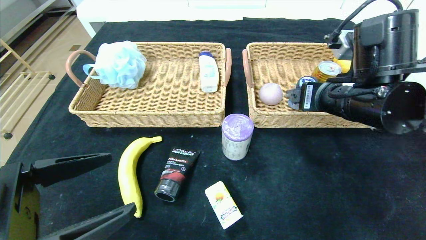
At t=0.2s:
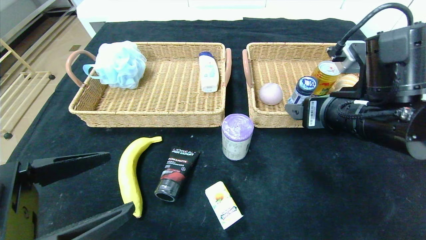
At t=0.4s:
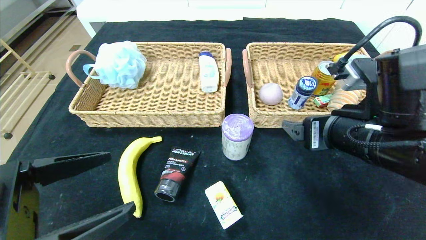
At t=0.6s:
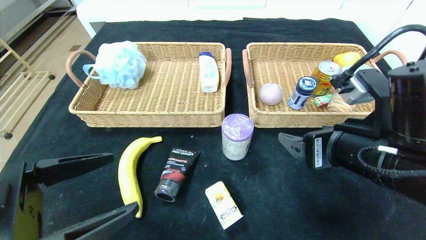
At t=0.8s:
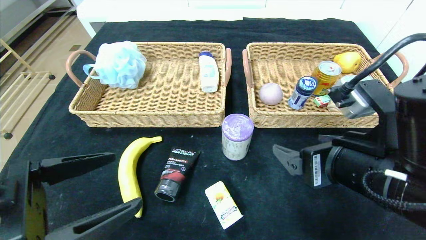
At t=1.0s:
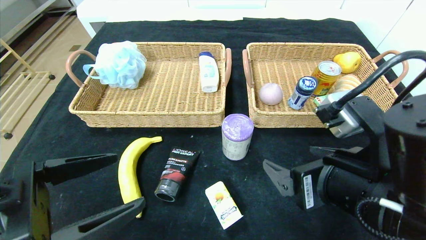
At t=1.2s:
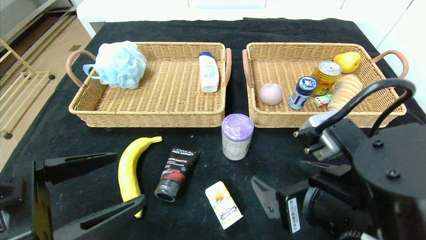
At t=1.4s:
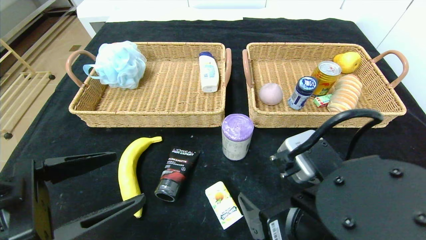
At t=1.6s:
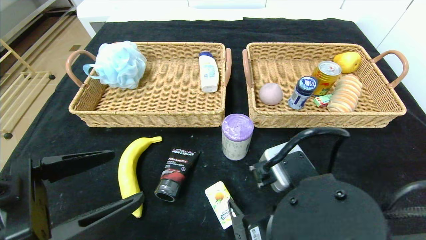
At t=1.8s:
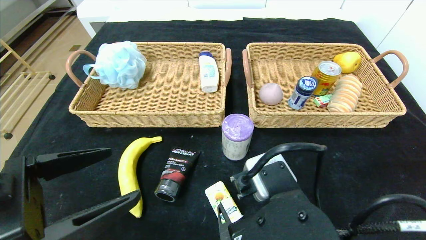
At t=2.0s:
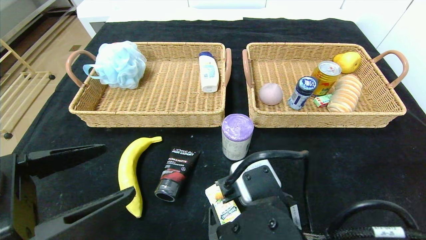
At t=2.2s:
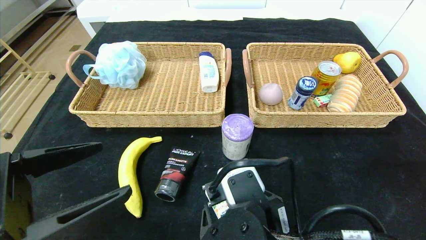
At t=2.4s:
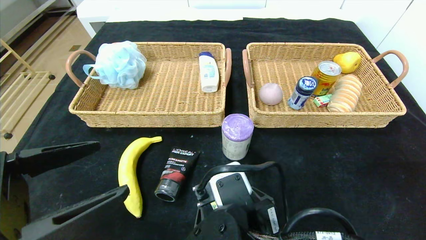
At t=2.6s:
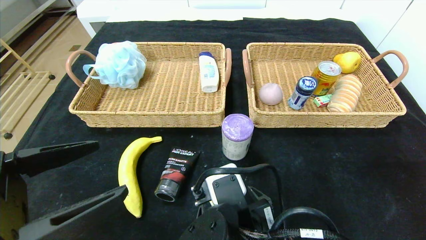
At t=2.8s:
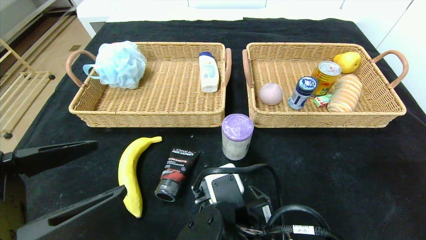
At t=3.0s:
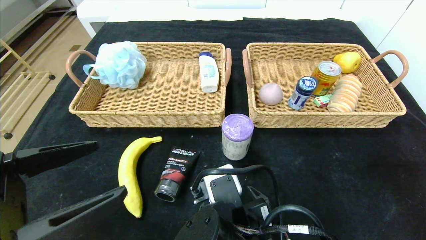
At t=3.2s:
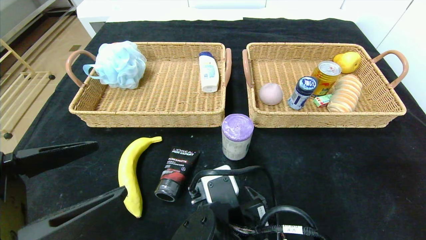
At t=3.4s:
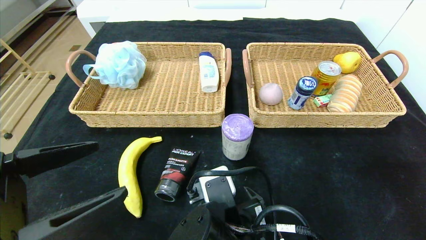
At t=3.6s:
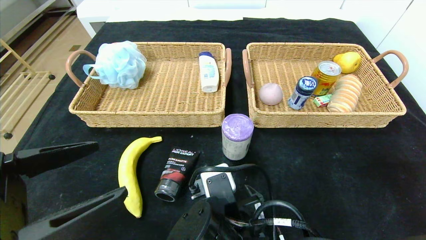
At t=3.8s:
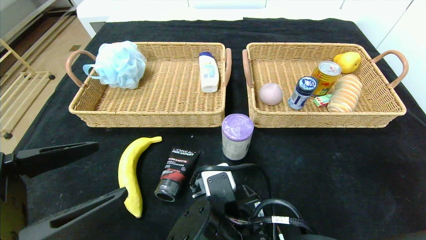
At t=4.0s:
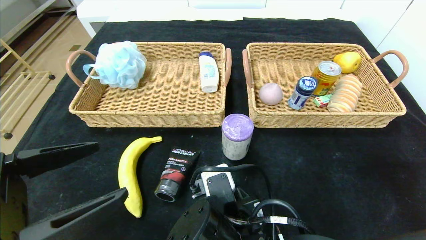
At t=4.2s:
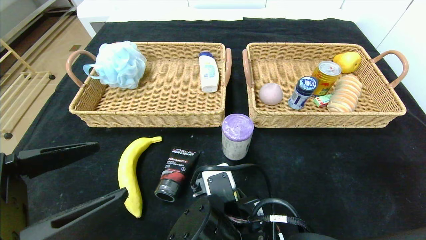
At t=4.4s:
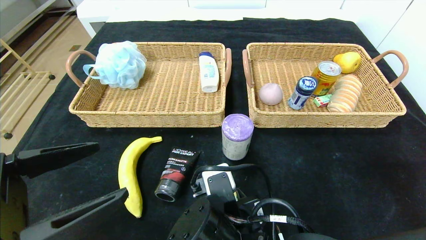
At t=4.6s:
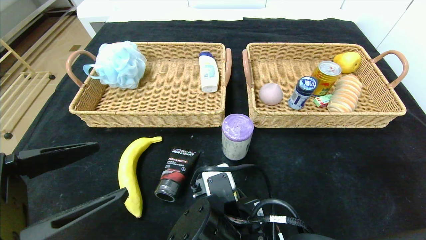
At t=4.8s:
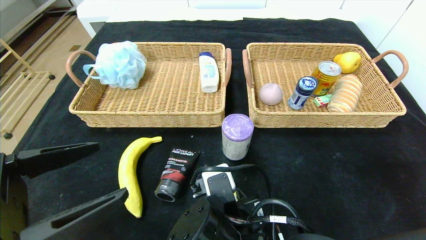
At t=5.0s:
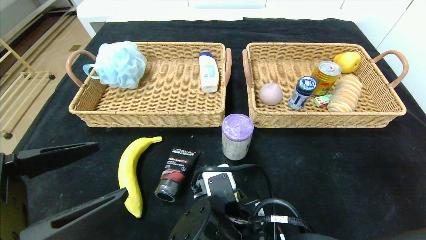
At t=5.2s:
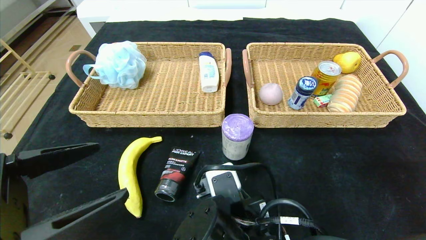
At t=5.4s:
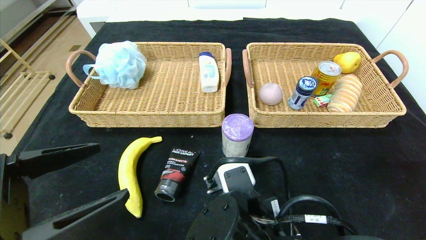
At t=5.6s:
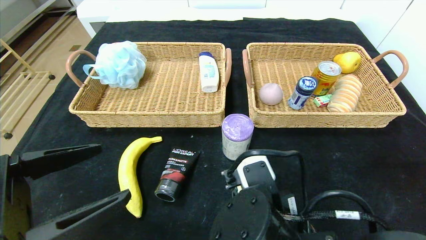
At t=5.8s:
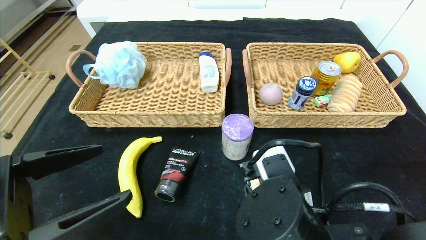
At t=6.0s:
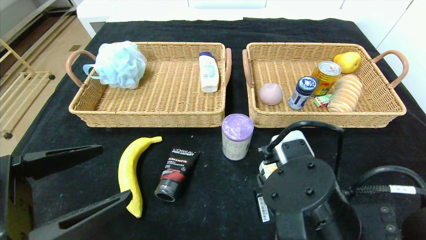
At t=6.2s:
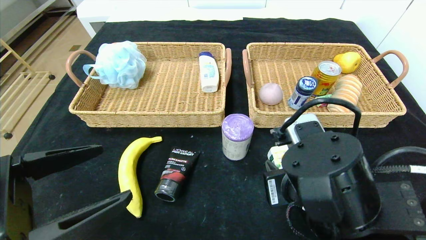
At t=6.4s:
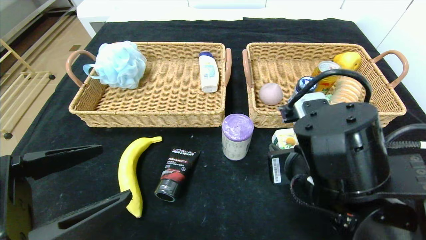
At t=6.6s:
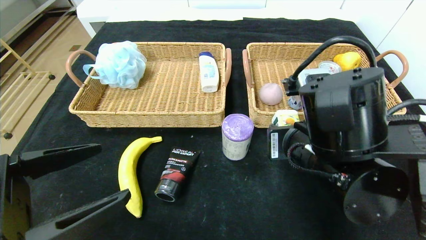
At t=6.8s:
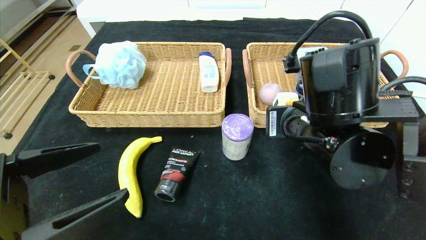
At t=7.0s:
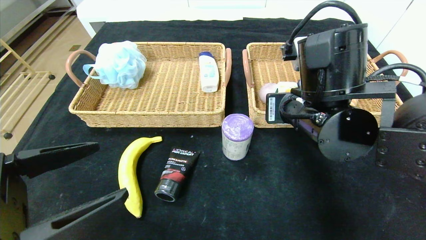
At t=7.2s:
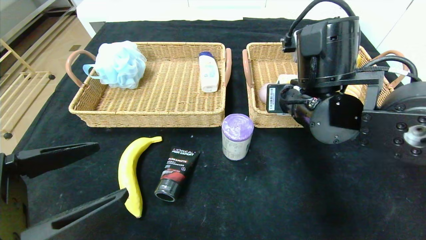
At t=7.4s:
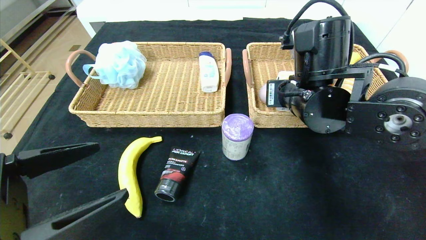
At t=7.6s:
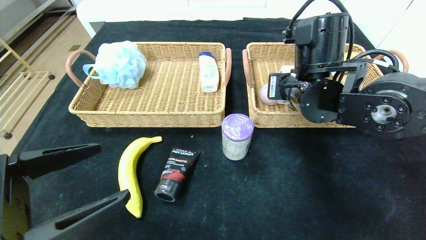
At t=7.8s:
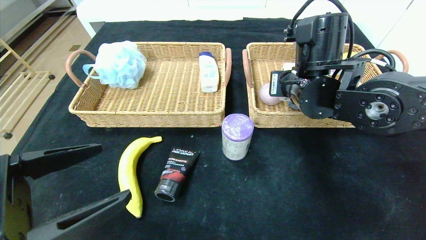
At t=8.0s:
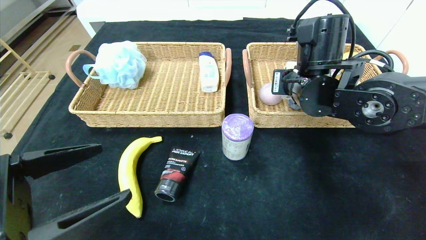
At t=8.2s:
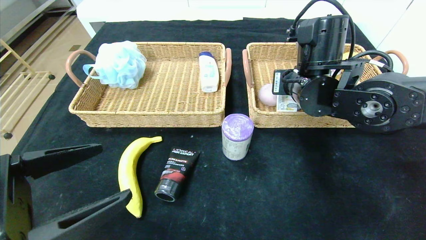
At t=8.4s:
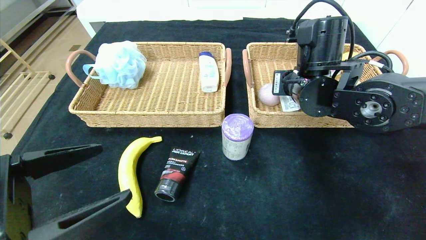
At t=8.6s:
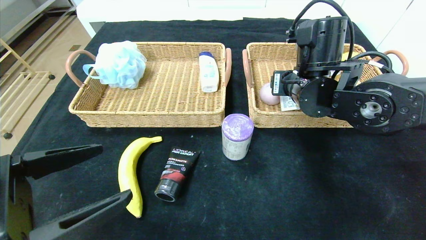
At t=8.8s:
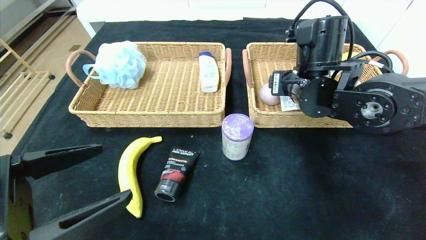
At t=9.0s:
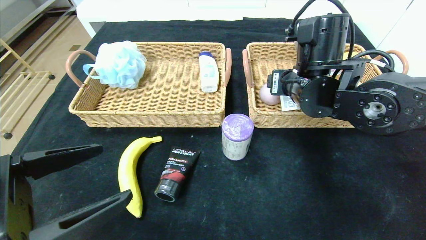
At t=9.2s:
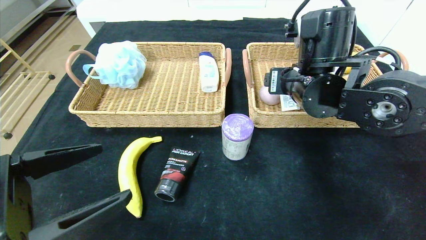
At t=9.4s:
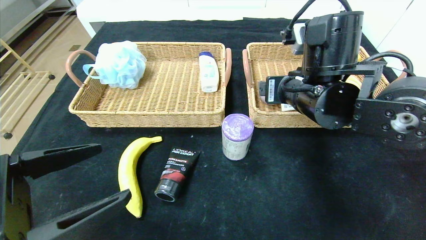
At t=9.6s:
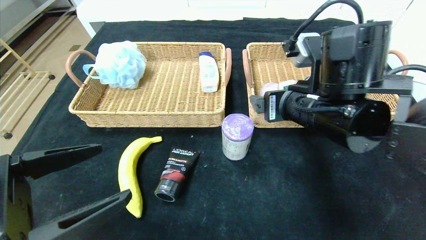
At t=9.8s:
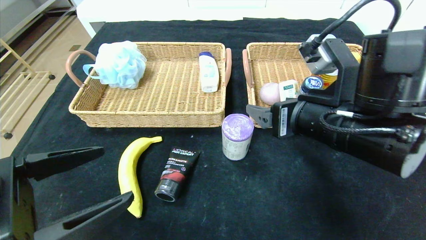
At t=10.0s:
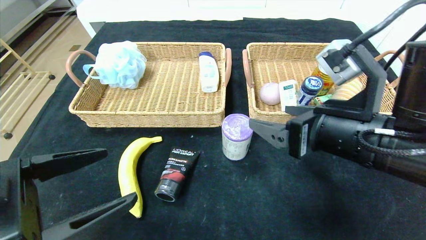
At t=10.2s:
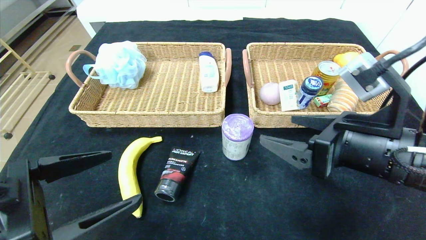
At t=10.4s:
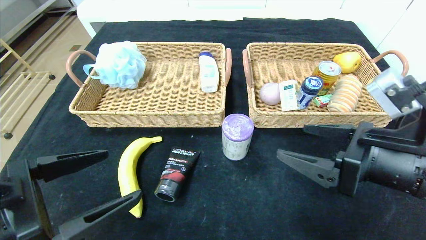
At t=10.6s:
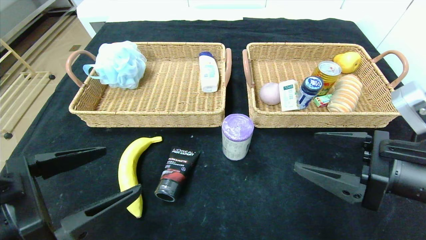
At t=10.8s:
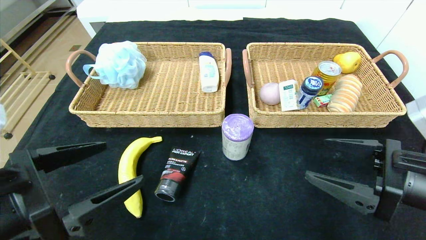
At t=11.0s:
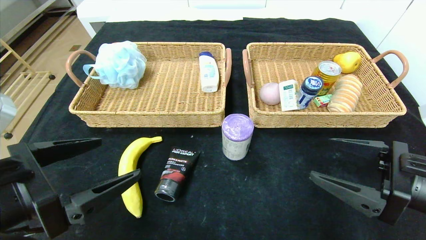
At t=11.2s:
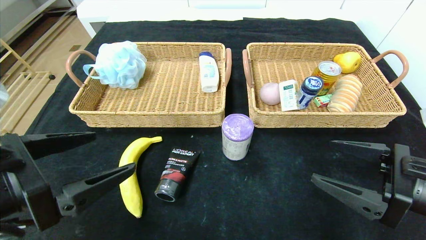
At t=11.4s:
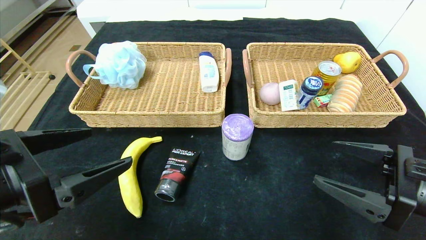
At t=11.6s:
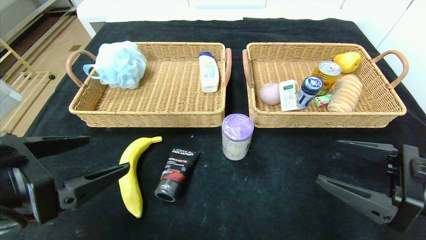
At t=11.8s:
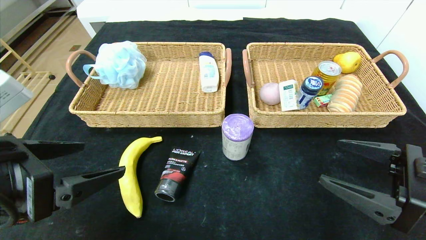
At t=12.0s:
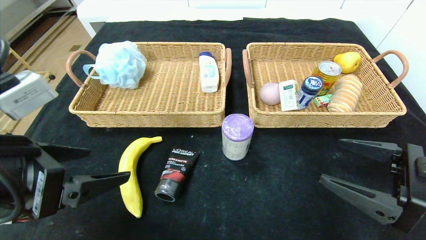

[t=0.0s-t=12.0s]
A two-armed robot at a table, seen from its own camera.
Step, t=0.0s to t=8.2s: Grasp the square chewing gum and put it in the right basket.
t=0.0s to t=1.6s: The right gripper moves backward, to the left and downward, about 20 cm.
t=1.6s to t=3.0s: The right gripper moves to the left and downward, about 10 cm.
t=3.0s to t=4.4s: The right gripper closes up.
t=4.4s to t=6.0s: The right gripper goes about 10 cm to the right and upward.
t=6.0s to t=7.6s: The right gripper shifts approximately 20 cm forward and upward.
t=7.6s to t=9.0s: The right gripper opens its fingers.
t=9.0s to t=10.4s: The right gripper heads backward and to the right, covering roughly 15 cm.
t=10.4s to t=12.0s: The right gripper heads to the right, covering about 5 cm. Meanwhile the left gripper shifts by roughly 5 cm.

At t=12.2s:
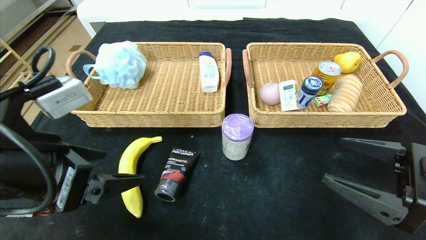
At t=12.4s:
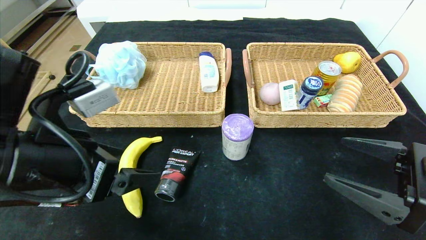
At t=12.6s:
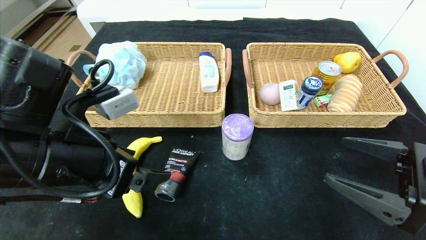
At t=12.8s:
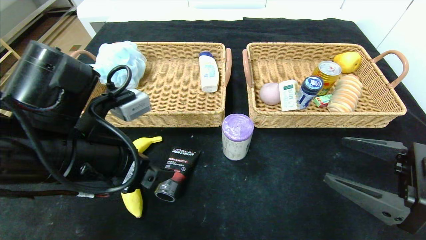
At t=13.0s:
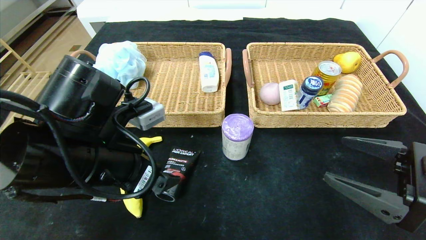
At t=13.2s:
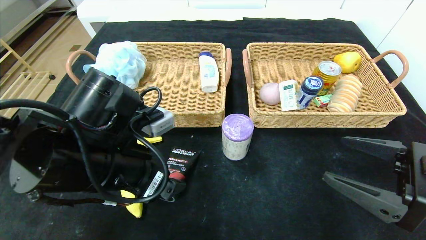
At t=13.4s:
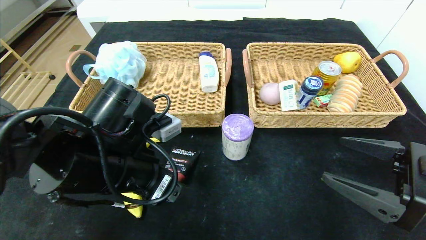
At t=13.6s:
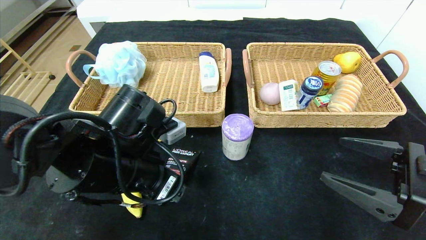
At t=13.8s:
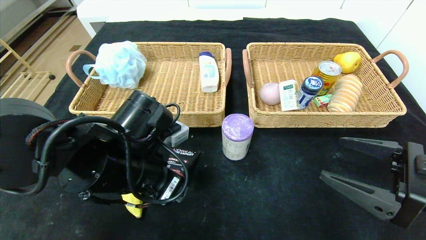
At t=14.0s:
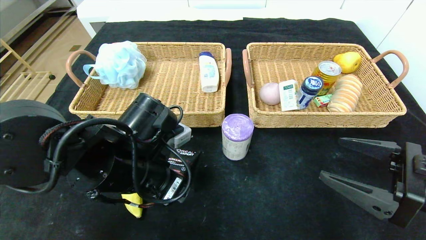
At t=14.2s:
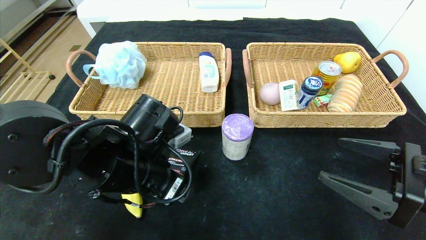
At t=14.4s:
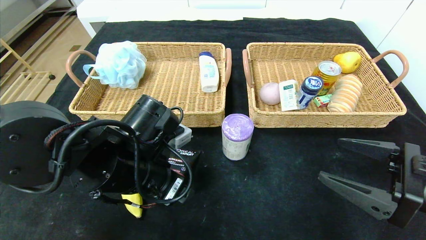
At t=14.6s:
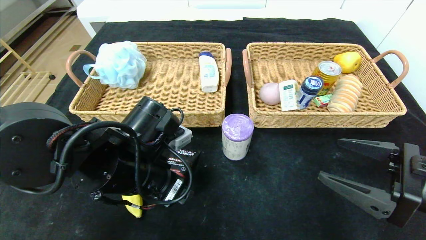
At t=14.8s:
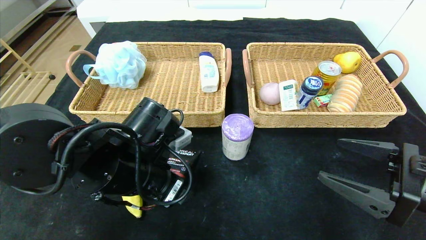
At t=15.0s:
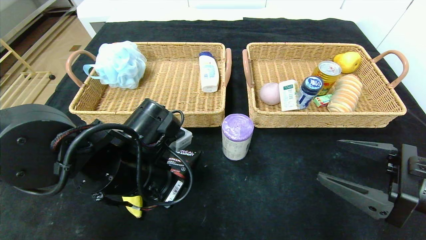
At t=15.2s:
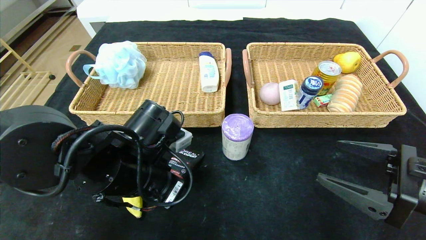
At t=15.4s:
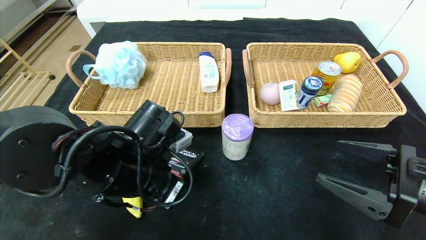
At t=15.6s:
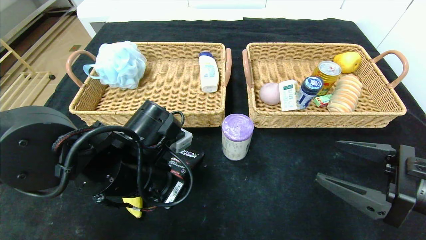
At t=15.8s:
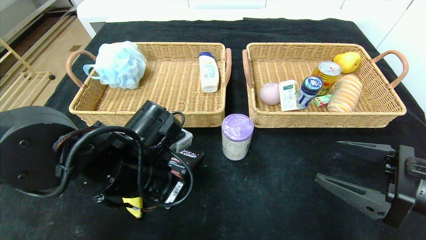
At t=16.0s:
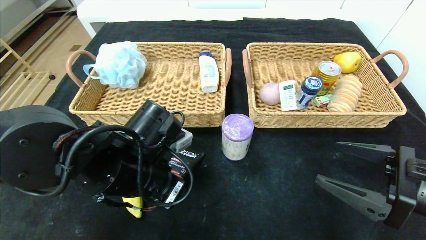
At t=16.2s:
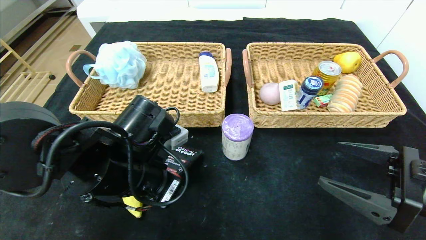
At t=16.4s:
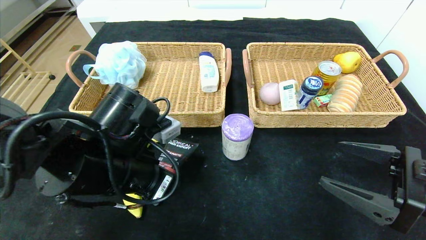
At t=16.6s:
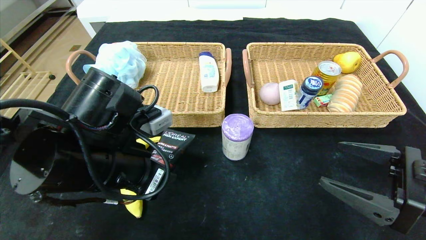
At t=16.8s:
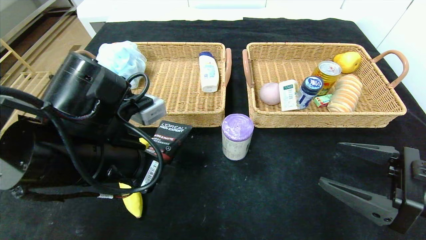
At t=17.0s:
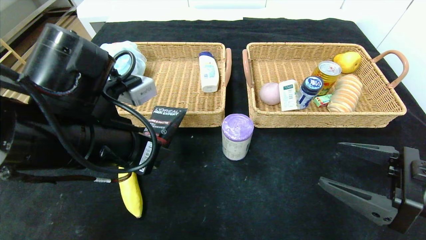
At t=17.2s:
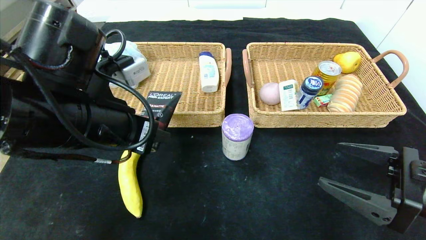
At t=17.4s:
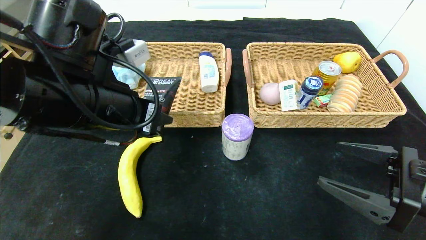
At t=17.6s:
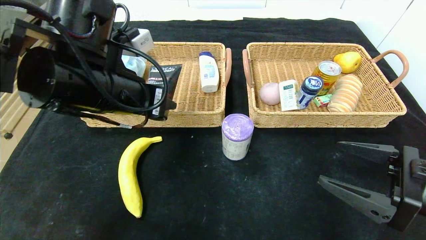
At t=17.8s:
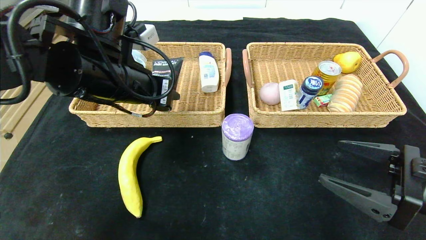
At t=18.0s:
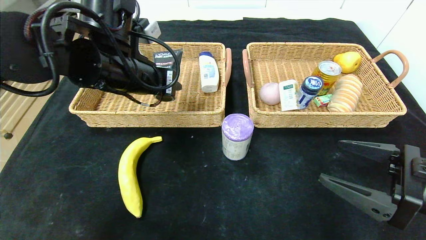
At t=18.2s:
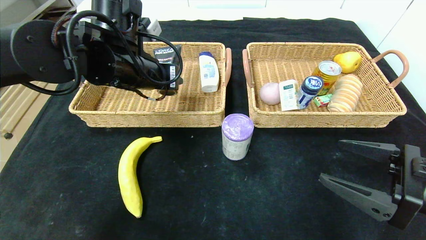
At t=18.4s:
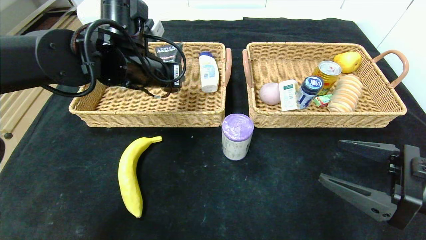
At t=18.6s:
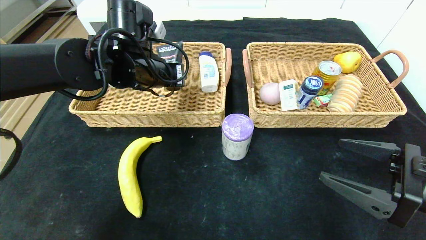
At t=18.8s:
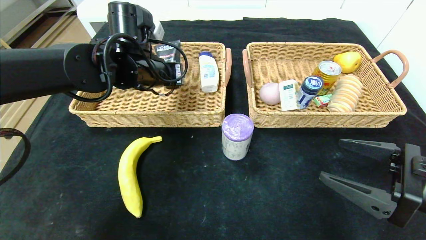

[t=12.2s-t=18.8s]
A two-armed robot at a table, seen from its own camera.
t=12.2s to t=13.8s: The left gripper shifts approximately 15 cm to the right, forward and downward.
t=13.8s to t=15.4s: The left gripper closes.
t=15.4s to t=17.2s: The left gripper moves upward, some 10 cm.
t=17.2s to t=18.8s: The left gripper shifts roughly 15 cm forward.
